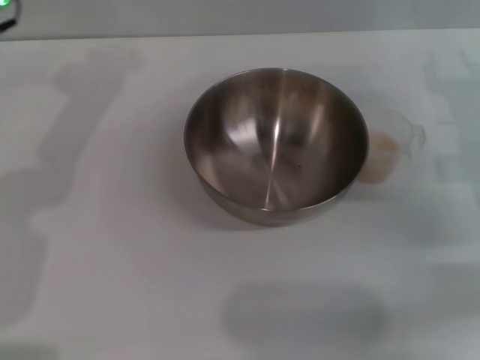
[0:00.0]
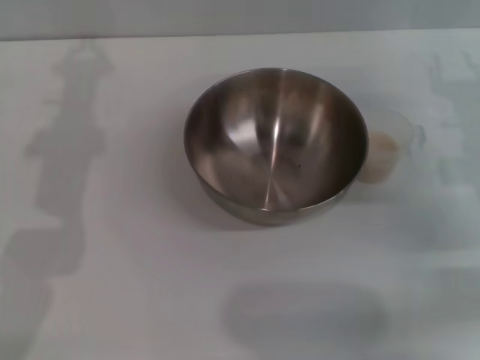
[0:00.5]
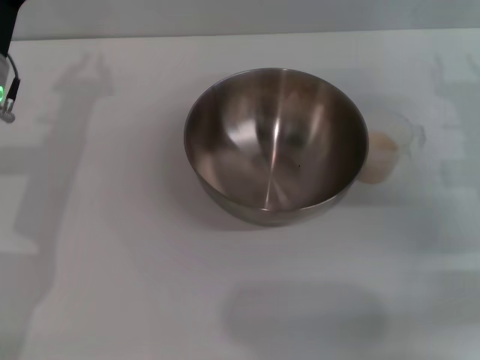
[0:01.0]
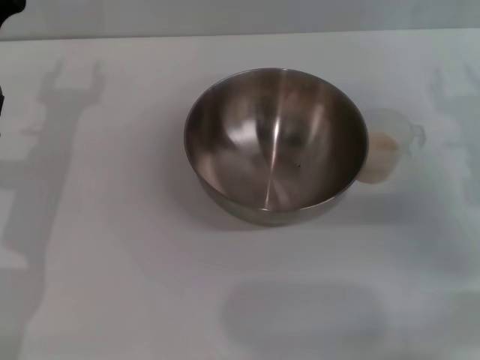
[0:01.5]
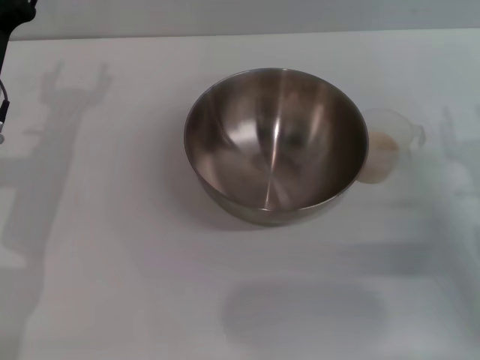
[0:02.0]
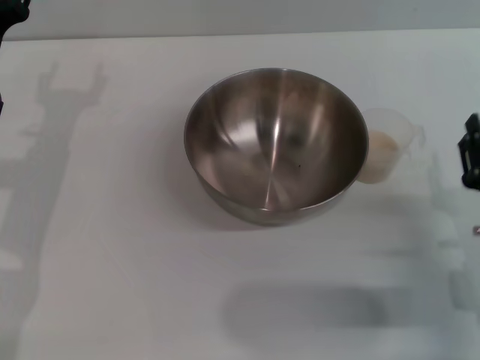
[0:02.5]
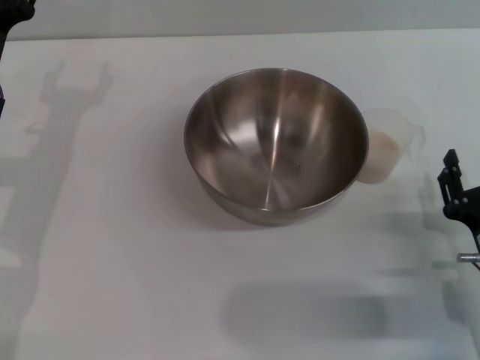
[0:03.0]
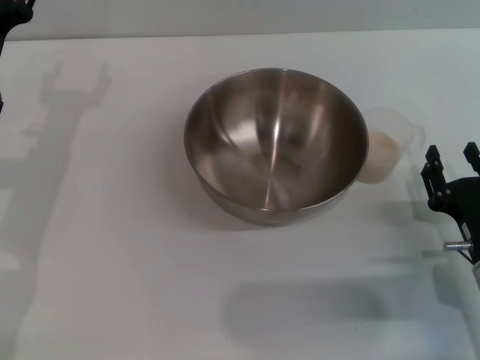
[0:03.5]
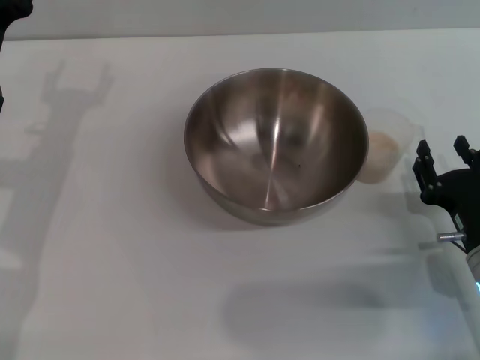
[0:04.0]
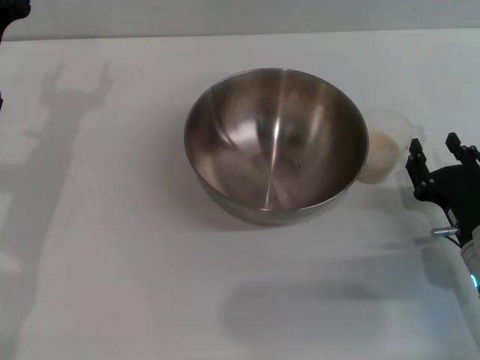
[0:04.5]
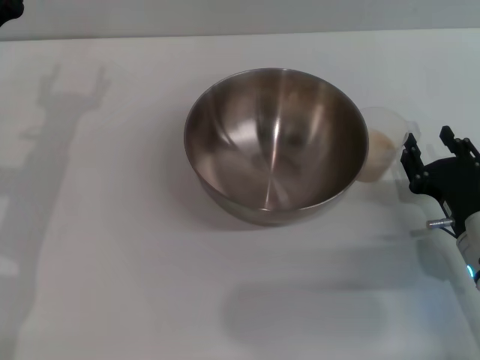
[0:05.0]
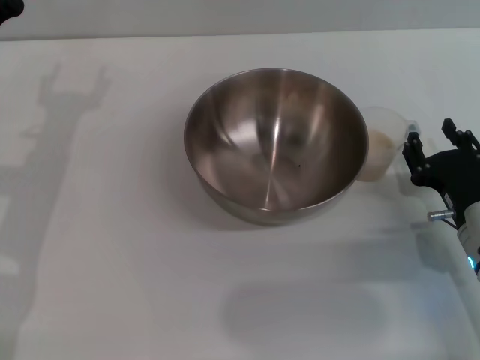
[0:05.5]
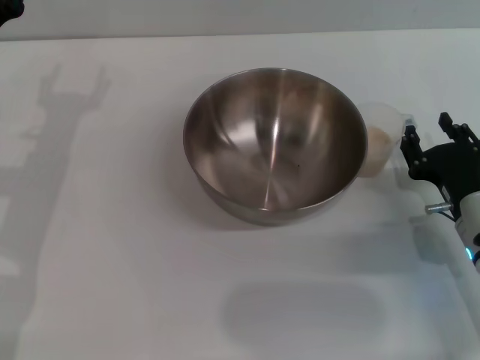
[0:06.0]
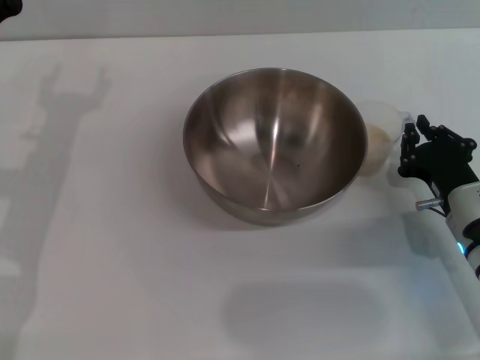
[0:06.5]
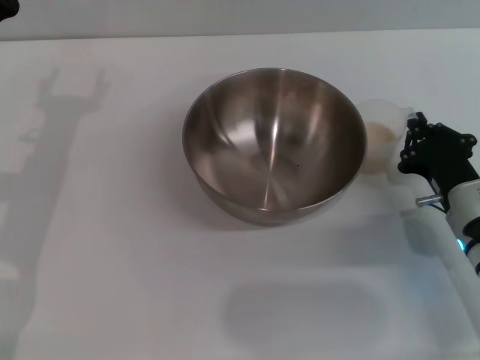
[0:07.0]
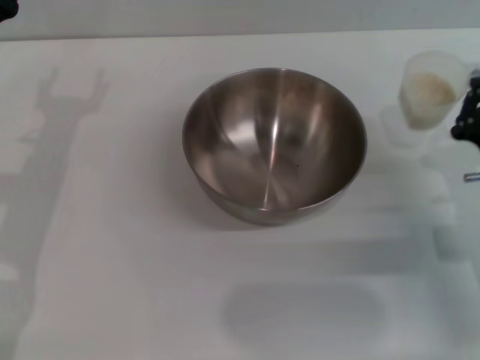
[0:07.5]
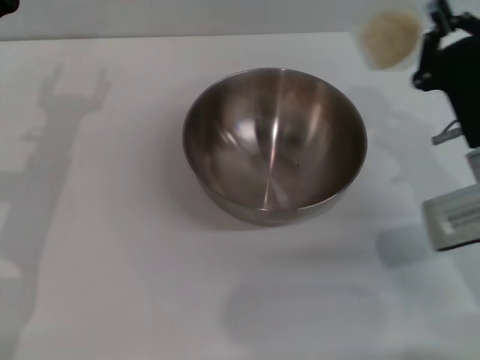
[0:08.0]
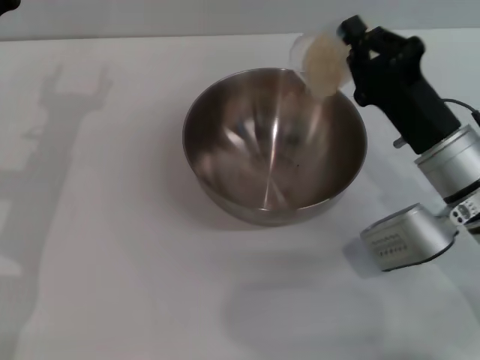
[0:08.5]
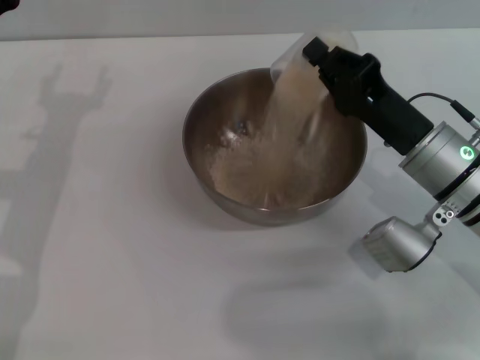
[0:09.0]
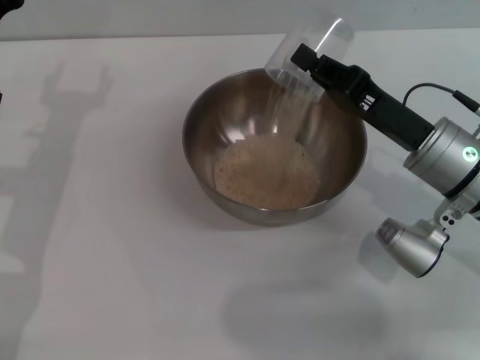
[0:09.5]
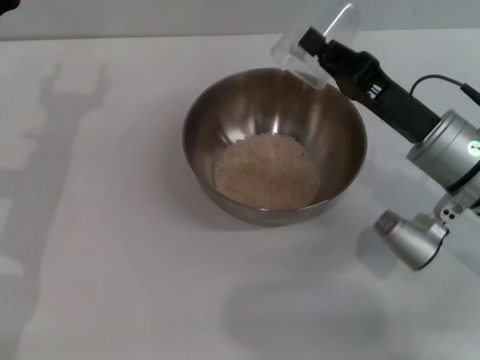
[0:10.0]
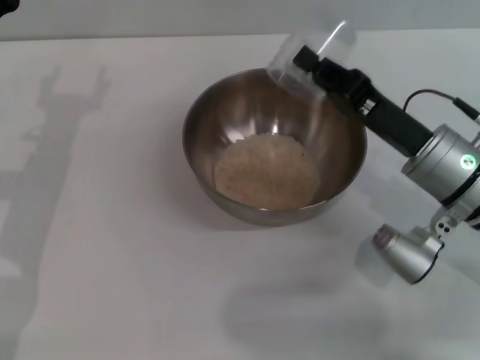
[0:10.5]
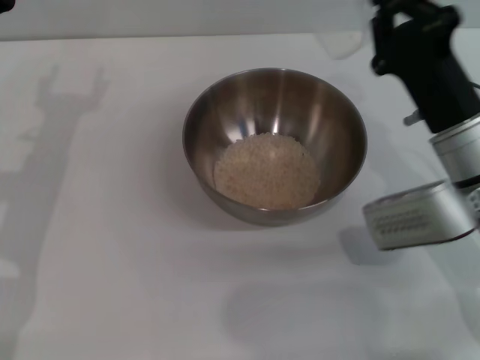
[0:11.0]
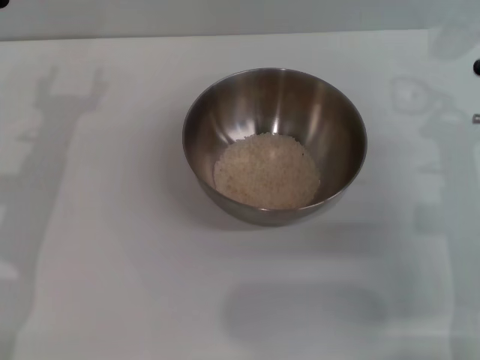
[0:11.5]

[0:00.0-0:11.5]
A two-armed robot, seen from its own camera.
Task of the whole recording: Place the bowl in the middle of the table with one hand and pour the rice from the grain cup into it with the other hand.
Step, 0:00.0 to 0:07.5: Pick up the cup with rice in it with the right gripper.
Step, 0:08.0 to 0:10.5: Pour the rice from the cup into the bowl with the right gripper.
0:00.0 to 0:02.0: The right gripper shifts roughly 10 cm backward and downward. Meanwhile the left gripper goes some 15 cm downward and backward, and opens up.
0:02.0 to 0:04.0: The right gripper travels to the left by about 5 cm.
0:04.0 to 0:06.0: The grippers make only small movements.
0:06.0 to 0:07.5: The right gripper closes.
0:07.5 to 0:09.5: The right gripper shifts approximately 10 cm to the left and forward.

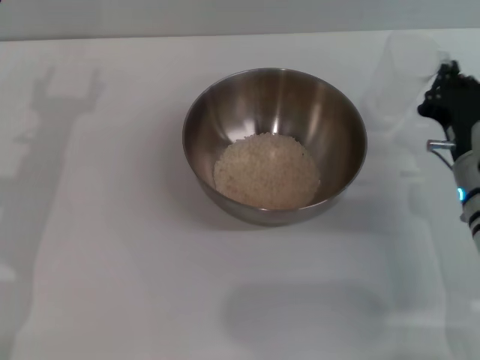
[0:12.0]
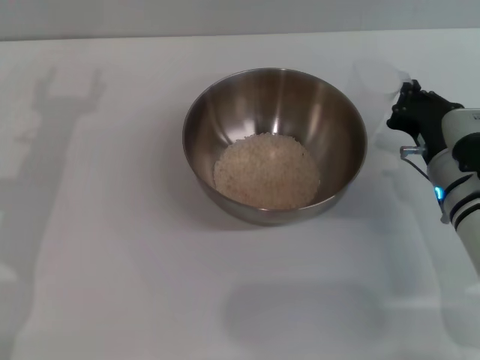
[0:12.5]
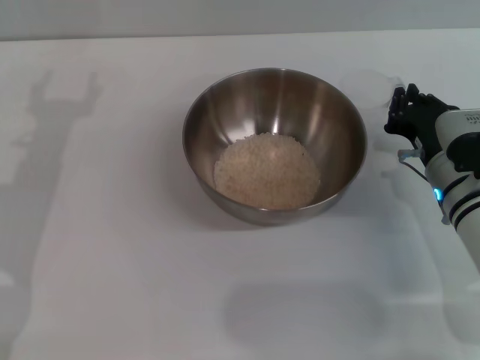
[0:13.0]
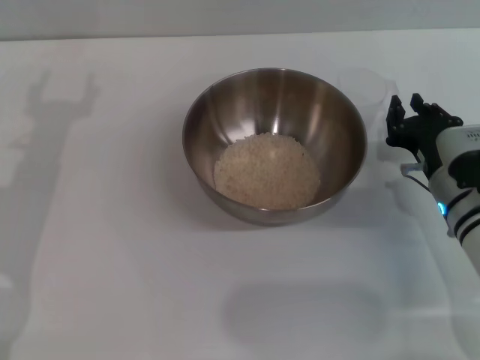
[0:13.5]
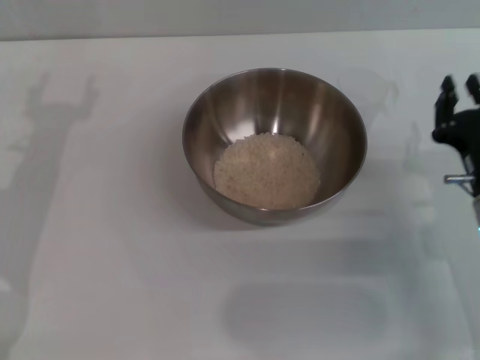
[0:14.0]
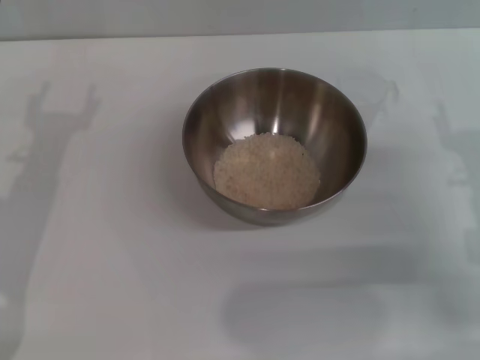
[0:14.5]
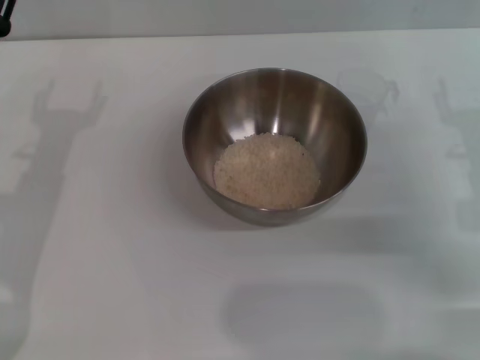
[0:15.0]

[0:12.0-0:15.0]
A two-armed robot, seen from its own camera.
Task of the whole recording: Place the bowl in the middle of the table with one hand and pour the rice from the grain cup into it with the other hand.
Step, 0:12.0 to 0:13.5: Place the cup on the table with the right gripper.
0:12.0 to 0:13.5: The right gripper opens.
0:13.5 to 0:15.0: The right gripper goes roughly 10 cm upward and to the right, and opens.
